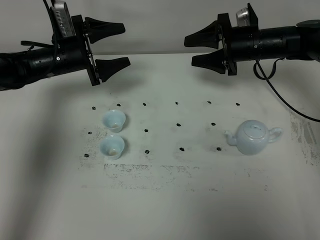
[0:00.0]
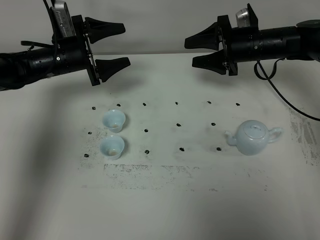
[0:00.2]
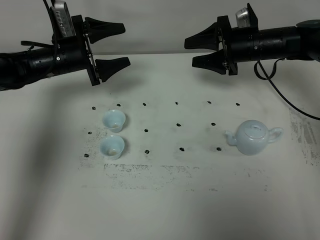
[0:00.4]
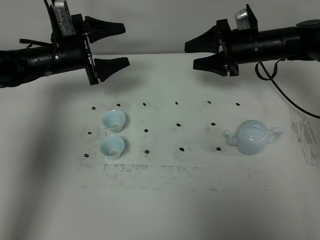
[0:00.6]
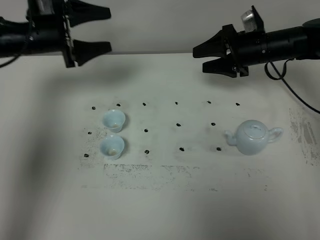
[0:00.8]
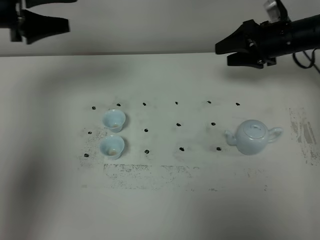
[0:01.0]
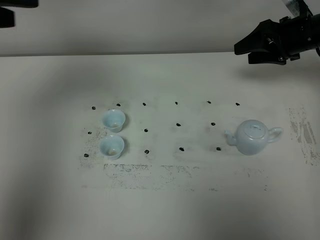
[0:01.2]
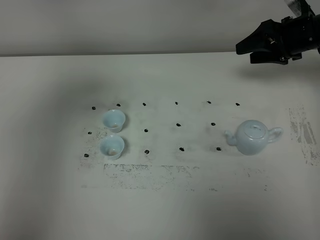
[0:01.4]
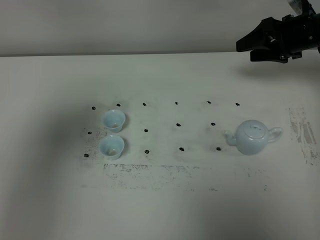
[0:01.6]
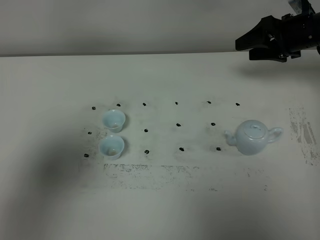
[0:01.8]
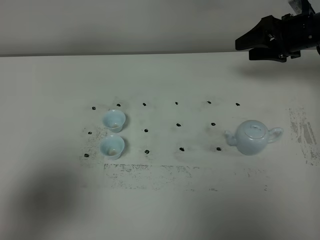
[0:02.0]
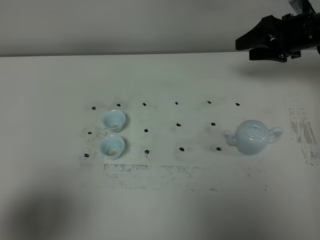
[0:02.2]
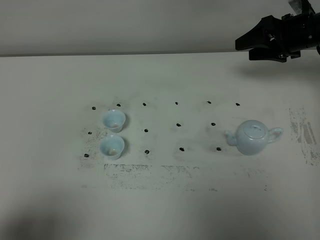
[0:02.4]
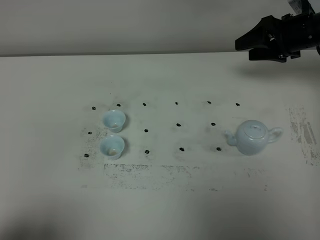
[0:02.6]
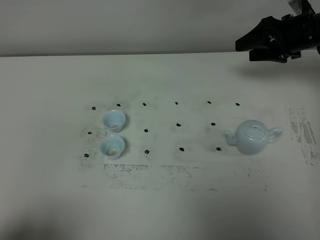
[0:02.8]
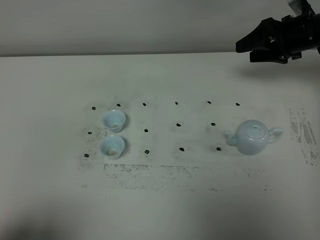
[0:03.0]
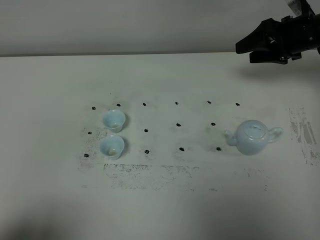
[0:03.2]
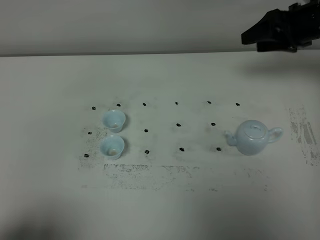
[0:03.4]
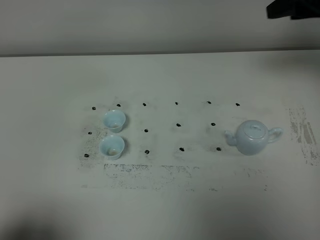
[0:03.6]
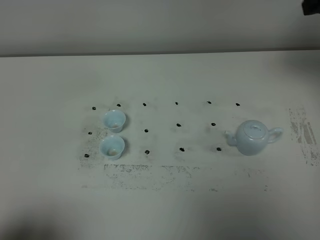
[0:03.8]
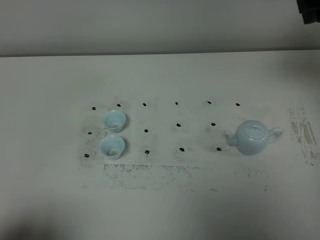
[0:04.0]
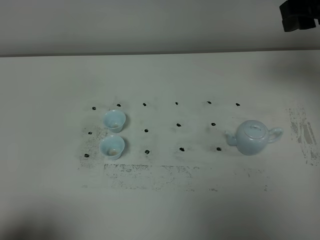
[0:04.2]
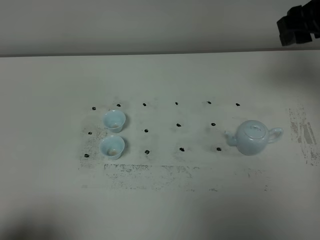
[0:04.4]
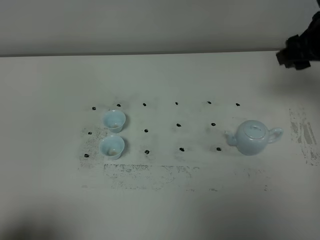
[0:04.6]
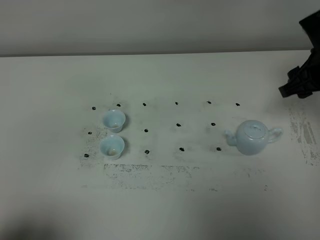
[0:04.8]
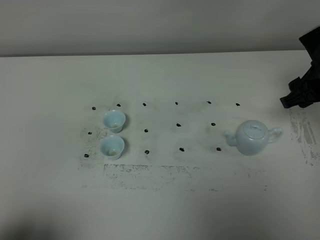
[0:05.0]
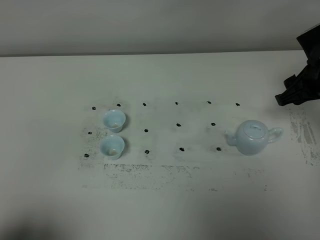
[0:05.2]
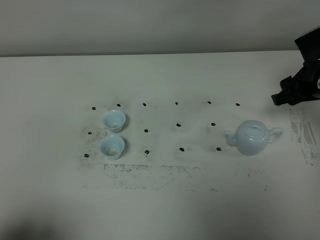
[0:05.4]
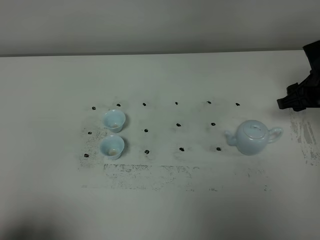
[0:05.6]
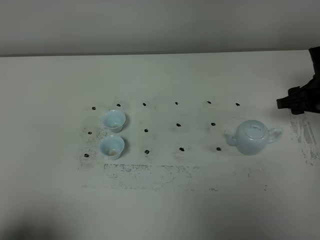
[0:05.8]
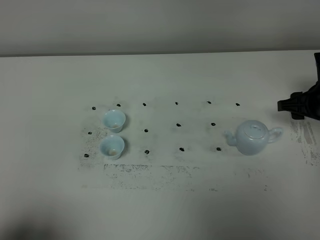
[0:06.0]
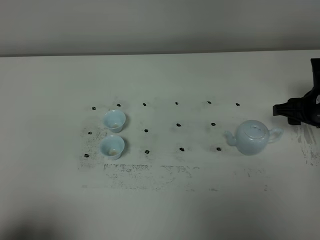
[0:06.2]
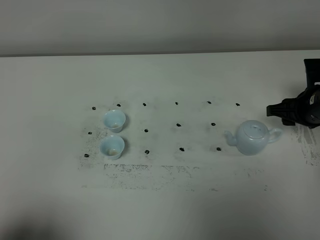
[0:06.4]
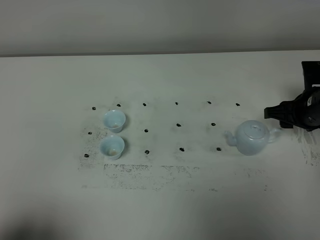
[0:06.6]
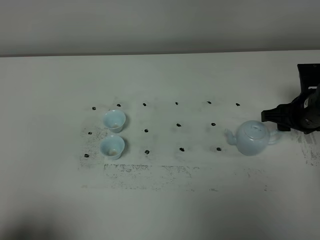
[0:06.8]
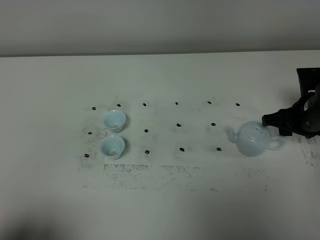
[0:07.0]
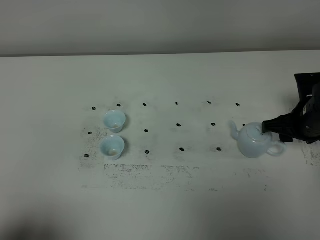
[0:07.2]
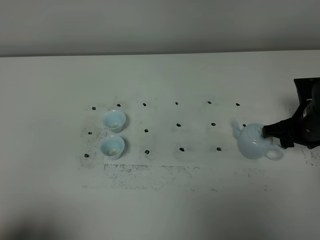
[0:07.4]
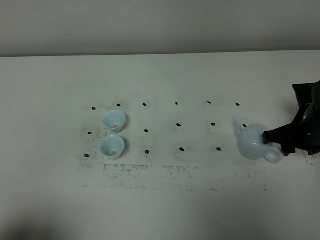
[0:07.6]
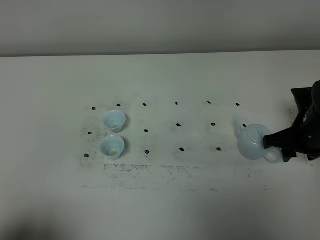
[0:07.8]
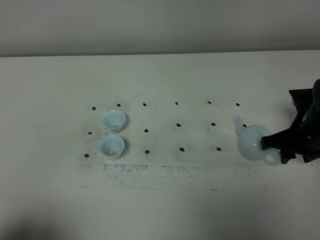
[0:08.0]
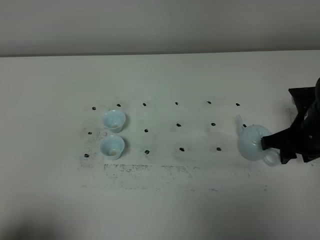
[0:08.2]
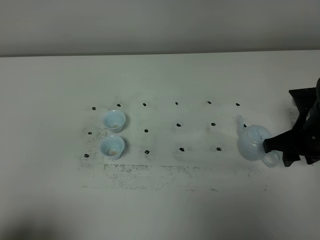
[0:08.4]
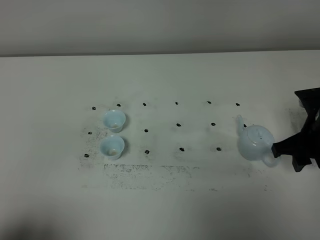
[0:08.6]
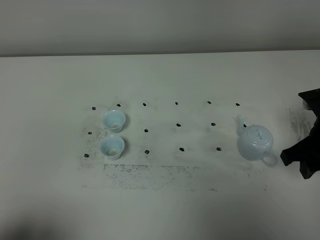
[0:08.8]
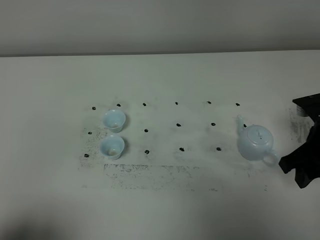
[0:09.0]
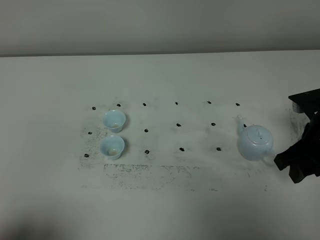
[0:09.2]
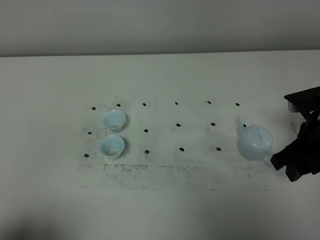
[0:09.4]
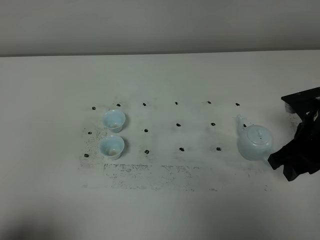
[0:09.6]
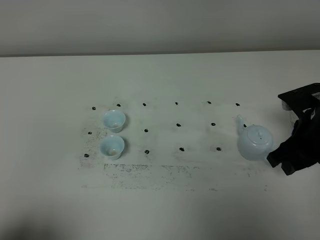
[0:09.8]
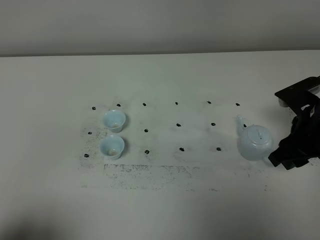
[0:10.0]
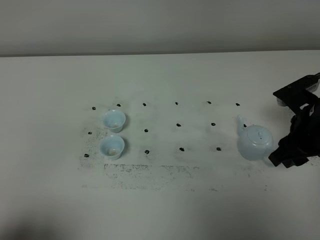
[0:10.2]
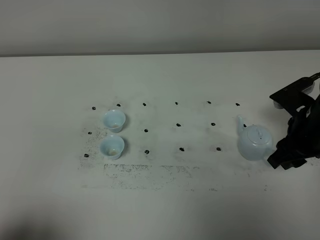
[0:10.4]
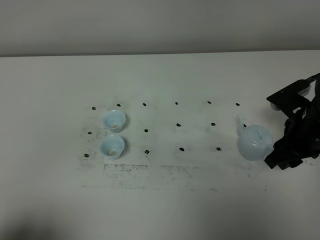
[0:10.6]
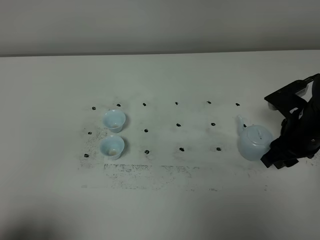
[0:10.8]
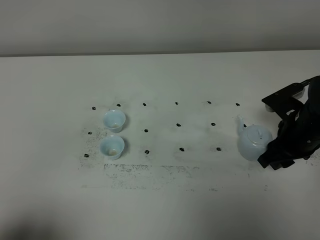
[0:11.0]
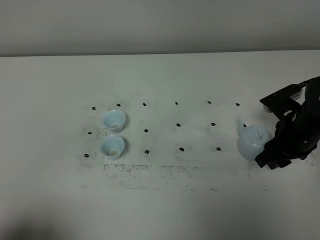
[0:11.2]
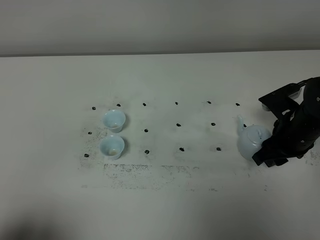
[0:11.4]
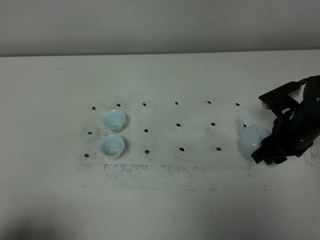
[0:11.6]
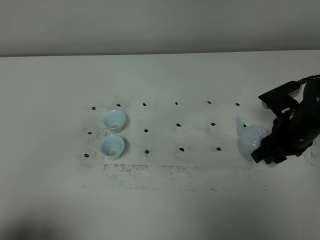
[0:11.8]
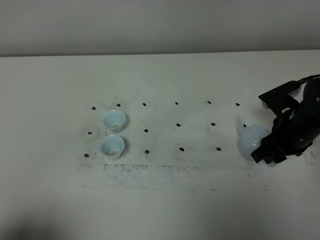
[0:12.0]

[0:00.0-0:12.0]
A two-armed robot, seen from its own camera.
Task of the whole recording: grasp the blue porcelain teapot and pour the tea into the two blue porcelain teacups one by one, put the blue porcelain teapot back in its original place.
0:00.0 to 0:01.6: The right gripper is displaced to the right by some 10 cm. Meanwhile the left gripper is displaced backward and upward by roughly 40 cm.
0:01.6 to 0:03.0: The left gripper travels downward and backward by approximately 25 cm.
0:03.0 to 0:04.4: The right gripper heads upward and backward, covering approximately 15 cm.
0:04.4 to 0:06.0: The right gripper heads downward, covering roughly 20 cm.
0:06.0 to 0:07.6: The right gripper ends up some 5 cm from where it was.
0:07.6 to 0:09.0: The right gripper goes roughly 10 cm upward and backward.
0:09.0 to 0:10.4: The grippers stay close to where they were, moving slightly.
0:10.4 to 0:12.0: The grippers stay close to where they were, moving slightly.

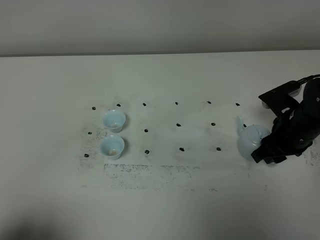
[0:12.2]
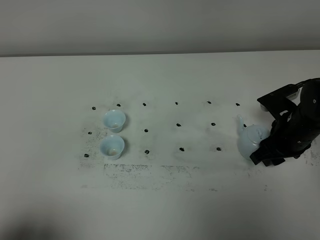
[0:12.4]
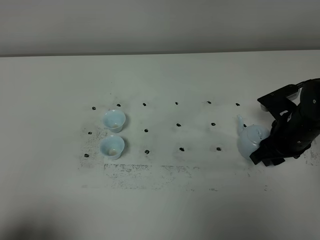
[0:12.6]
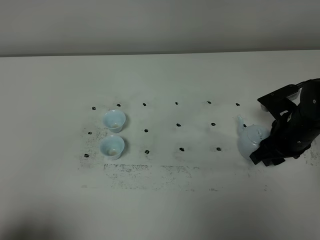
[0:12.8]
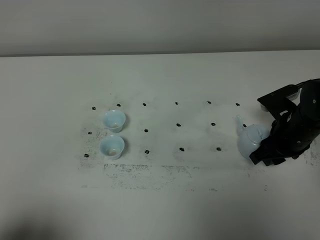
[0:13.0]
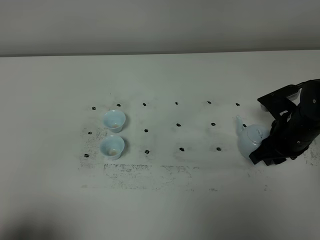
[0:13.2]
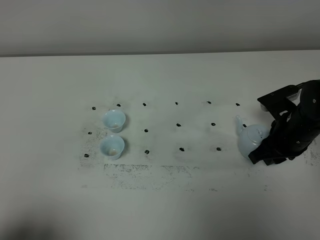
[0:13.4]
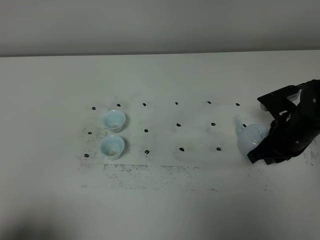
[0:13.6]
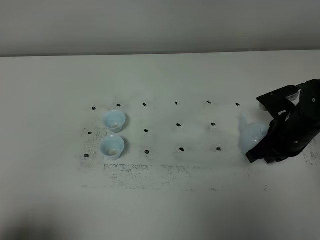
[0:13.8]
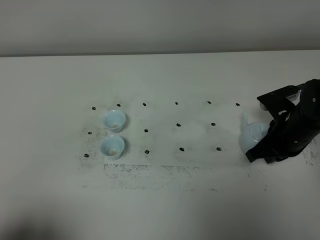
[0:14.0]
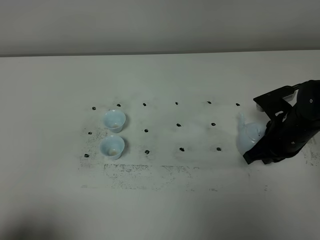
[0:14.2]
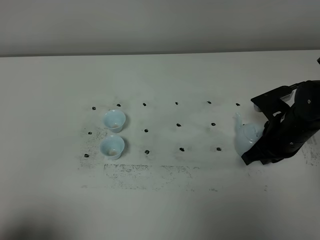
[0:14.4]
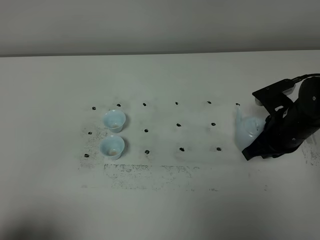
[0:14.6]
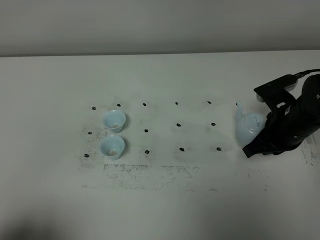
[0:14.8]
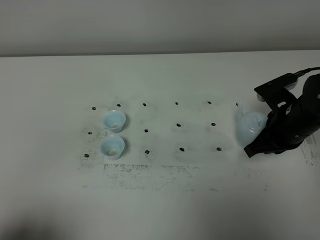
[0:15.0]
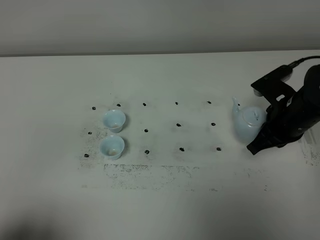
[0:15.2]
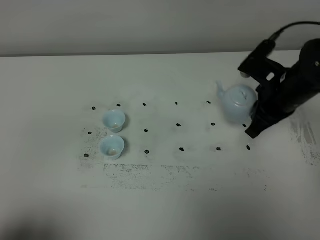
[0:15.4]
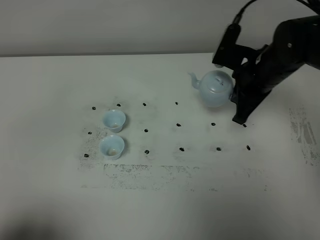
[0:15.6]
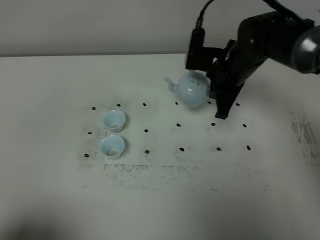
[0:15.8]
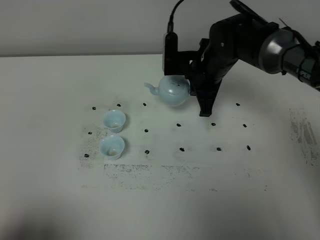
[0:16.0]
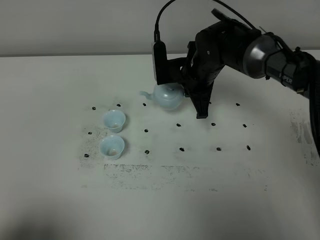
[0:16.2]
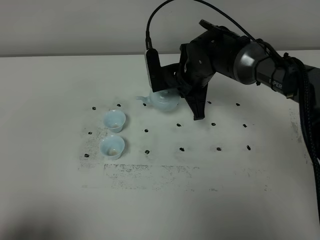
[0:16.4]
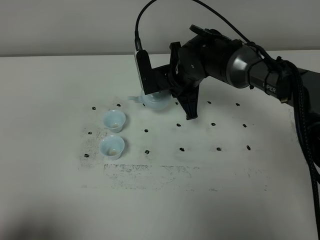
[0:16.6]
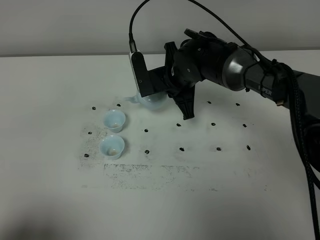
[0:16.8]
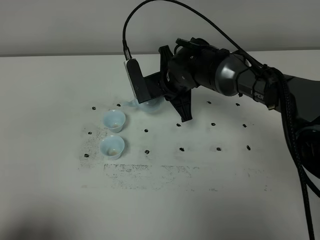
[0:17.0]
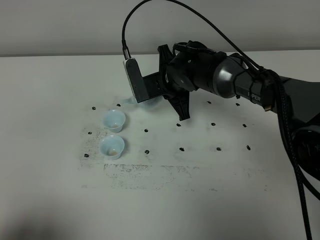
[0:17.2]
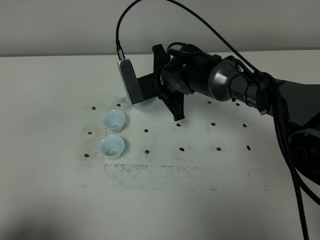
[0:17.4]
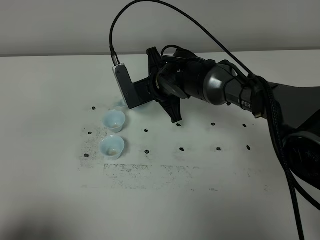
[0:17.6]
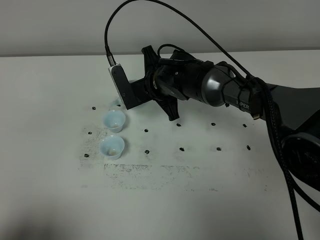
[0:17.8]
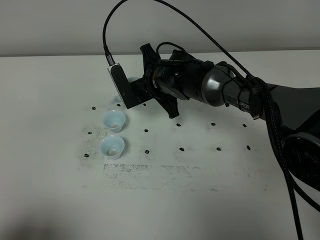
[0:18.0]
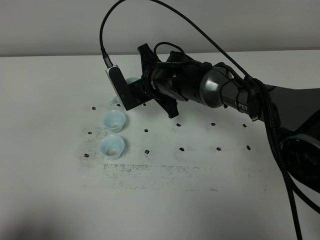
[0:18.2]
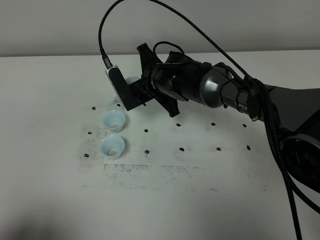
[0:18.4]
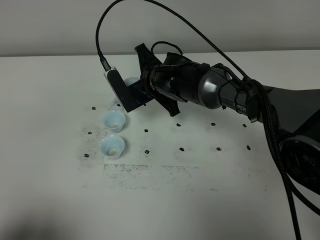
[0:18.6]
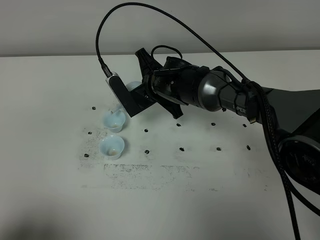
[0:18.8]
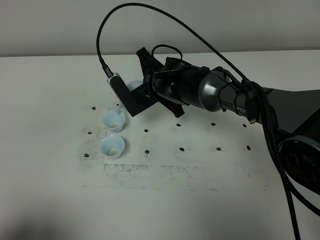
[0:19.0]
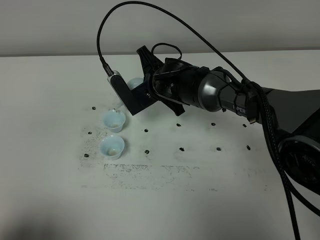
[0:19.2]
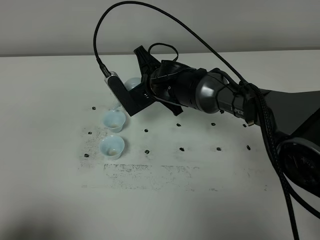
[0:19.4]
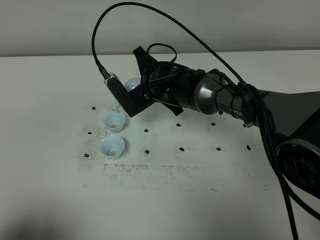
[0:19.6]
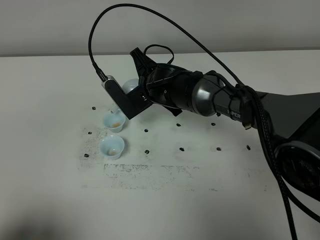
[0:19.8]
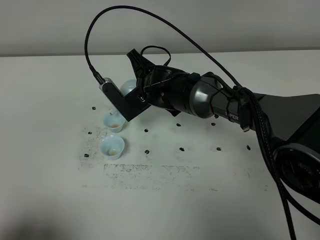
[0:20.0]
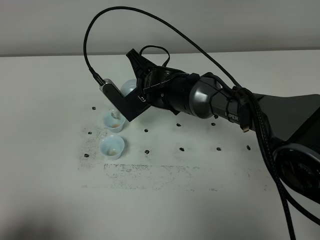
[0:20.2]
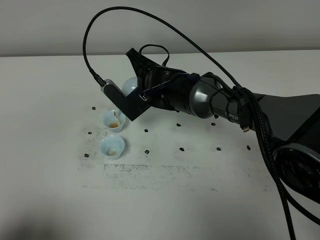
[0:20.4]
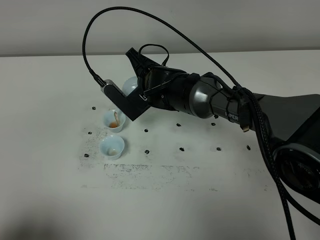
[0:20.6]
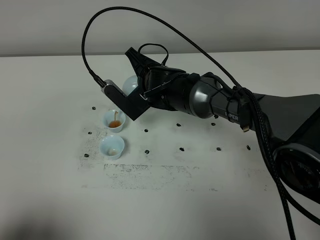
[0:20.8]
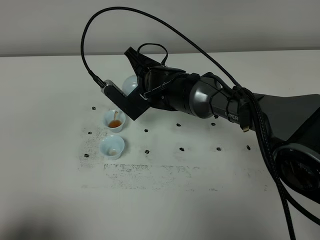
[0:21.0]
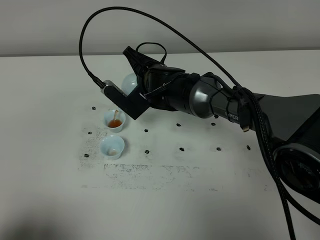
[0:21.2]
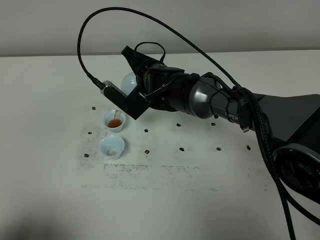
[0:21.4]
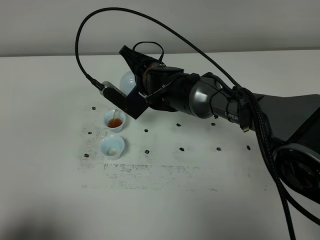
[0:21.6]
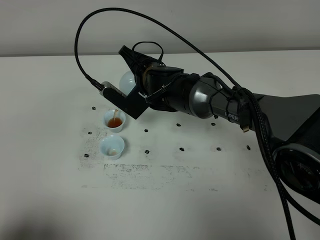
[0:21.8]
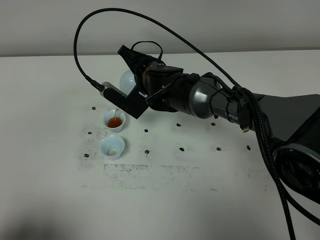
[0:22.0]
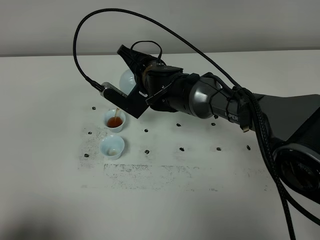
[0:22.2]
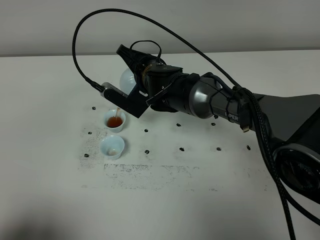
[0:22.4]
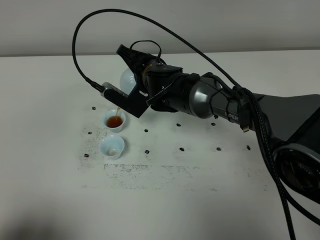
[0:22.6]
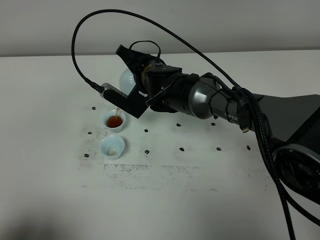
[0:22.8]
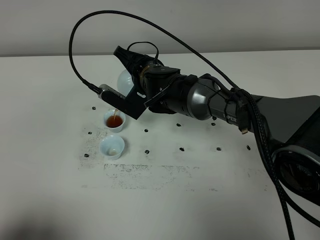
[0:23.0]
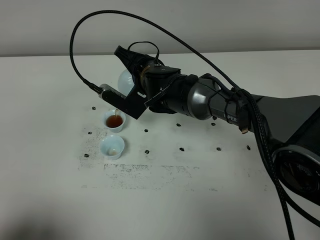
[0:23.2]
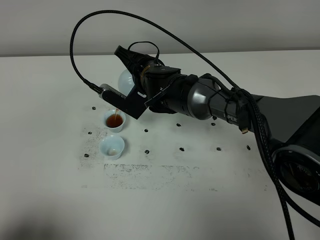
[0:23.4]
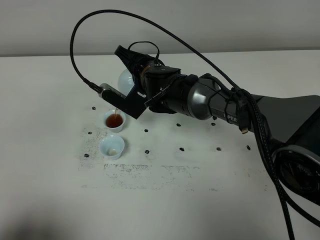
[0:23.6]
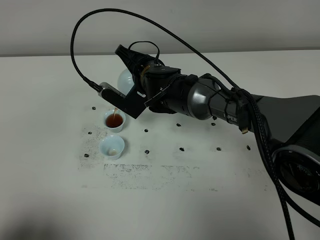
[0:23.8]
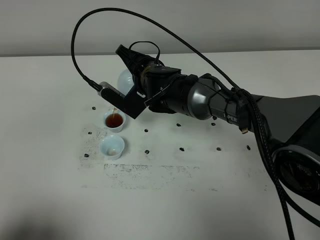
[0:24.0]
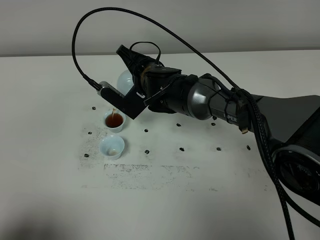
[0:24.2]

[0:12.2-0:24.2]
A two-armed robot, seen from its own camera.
Task of the whole recording: grasp the blue porcelain teapot and pour the tea into the two blue porcelain teacups one by one, put the blue porcelain teapot back in its original place.
Step, 0:12.2 to 0:14.6: Pick up the teapot with the right gripper.
0:12.2 to 0:13.8: The right gripper closes.
0:13.8 to 0:15.2: The right gripper ends up roughly 5 cm from where it was.
0:15.2 to 0:16.6: The right gripper is displaced to the left and forward by roughly 20 cm.
0:16.6 to 0:18.2: There are only small adjustments of the grippers.
0:18.2 to 0:19.8: The grippers move only a little.
0:19.8 to 0:21.2: The grippers move only a little.
0:21.2 to 0:24.2: The grippers move only a little.
